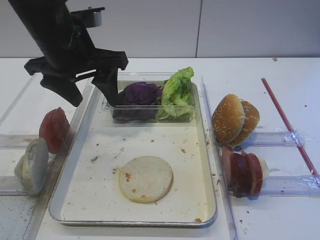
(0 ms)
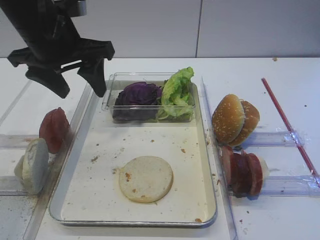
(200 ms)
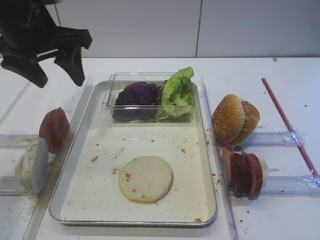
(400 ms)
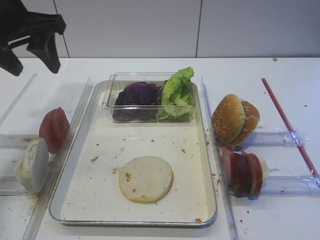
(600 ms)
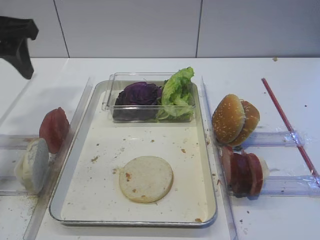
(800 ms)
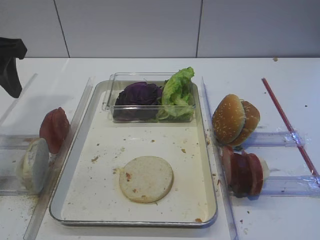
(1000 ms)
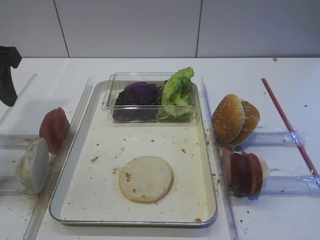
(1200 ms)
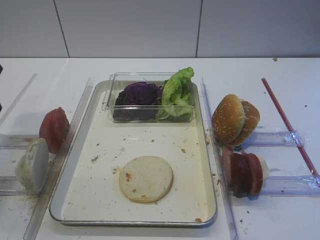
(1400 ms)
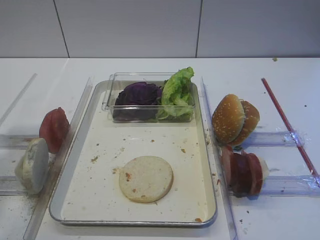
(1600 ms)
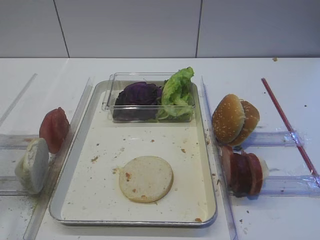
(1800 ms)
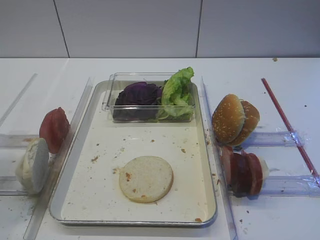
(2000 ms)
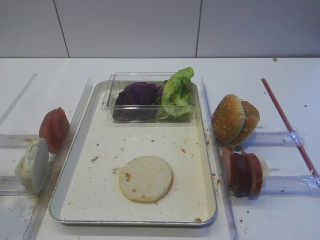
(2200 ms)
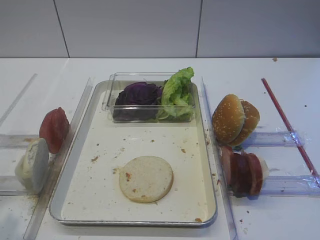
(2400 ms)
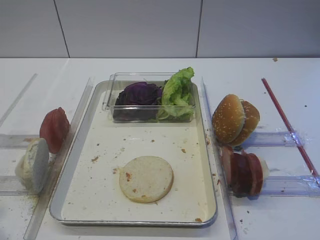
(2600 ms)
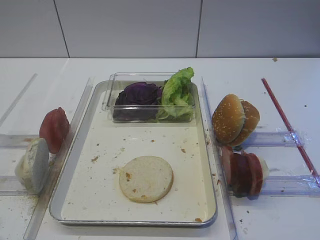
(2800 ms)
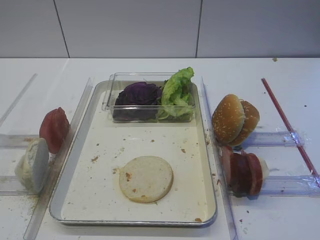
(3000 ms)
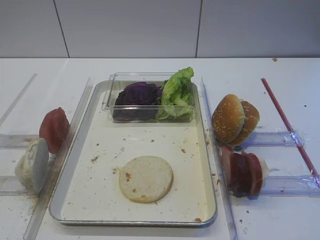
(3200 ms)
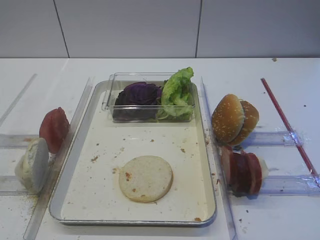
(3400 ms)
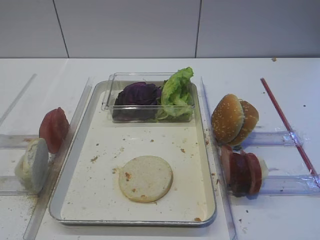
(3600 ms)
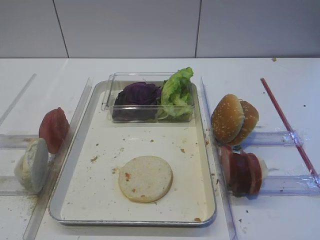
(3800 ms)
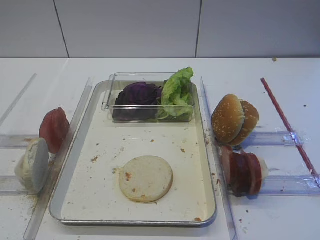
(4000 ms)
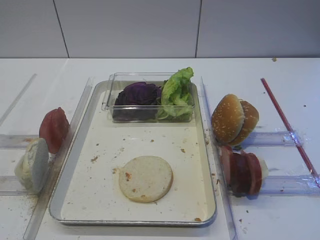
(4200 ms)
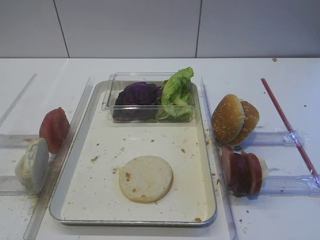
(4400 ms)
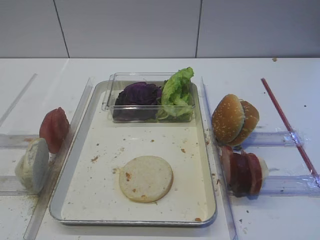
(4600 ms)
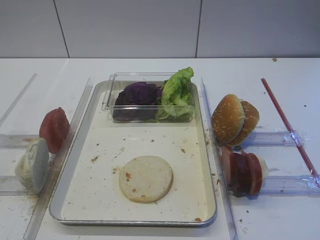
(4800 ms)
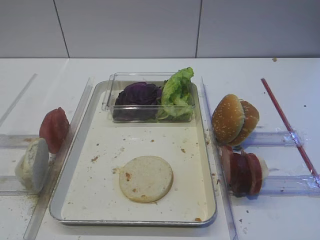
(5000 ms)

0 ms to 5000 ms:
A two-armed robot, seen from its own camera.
0 ms to 1600 ms: The left gripper is displaced backward and to the left by some 20 cm.
1600 ms to 3400 ms: The left gripper is displaced backward by some 20 cm.

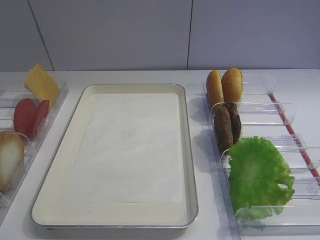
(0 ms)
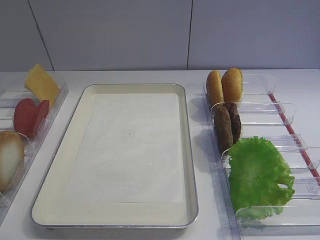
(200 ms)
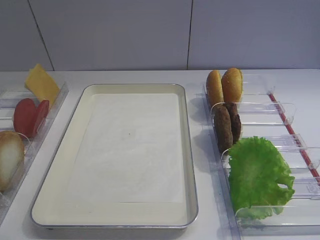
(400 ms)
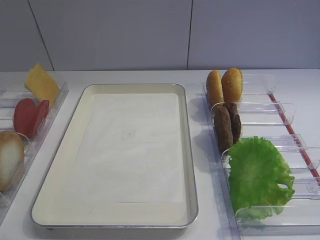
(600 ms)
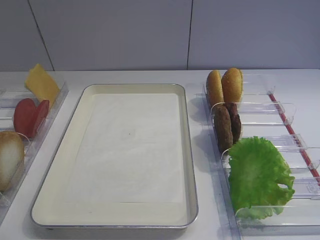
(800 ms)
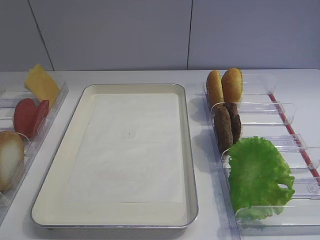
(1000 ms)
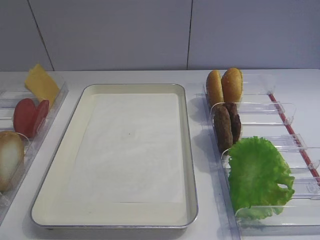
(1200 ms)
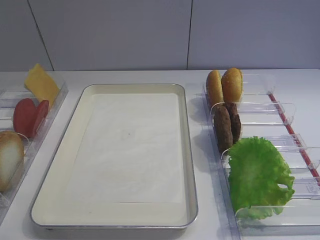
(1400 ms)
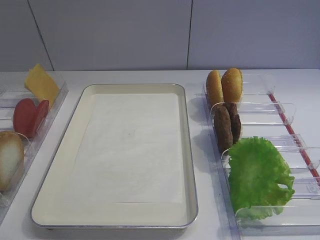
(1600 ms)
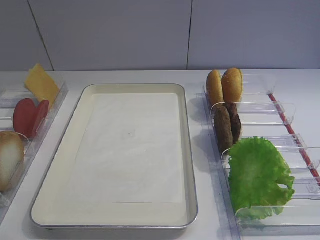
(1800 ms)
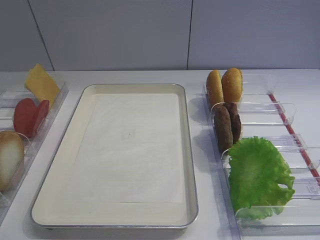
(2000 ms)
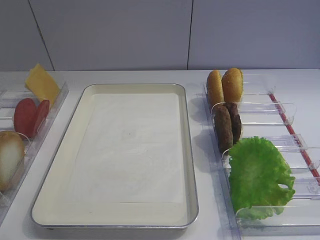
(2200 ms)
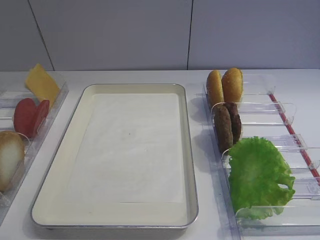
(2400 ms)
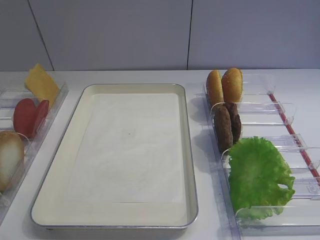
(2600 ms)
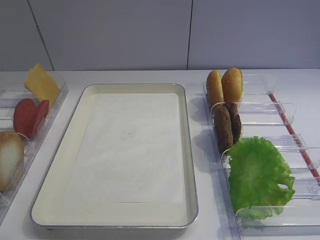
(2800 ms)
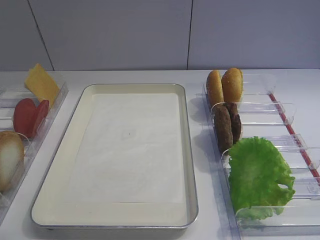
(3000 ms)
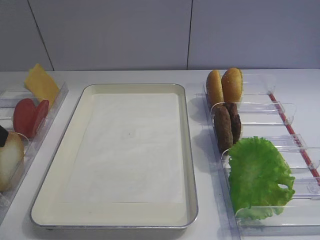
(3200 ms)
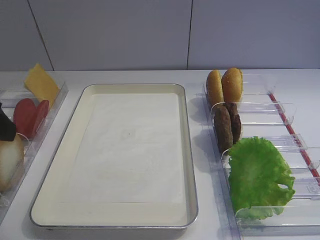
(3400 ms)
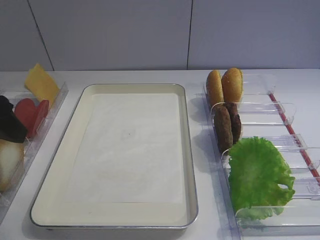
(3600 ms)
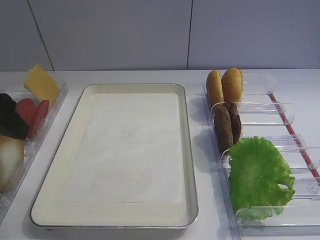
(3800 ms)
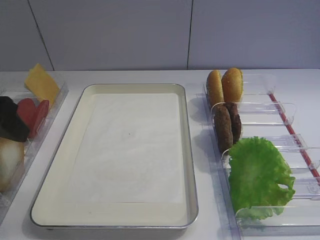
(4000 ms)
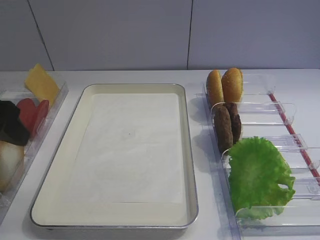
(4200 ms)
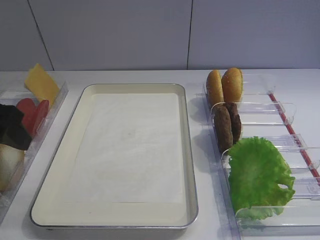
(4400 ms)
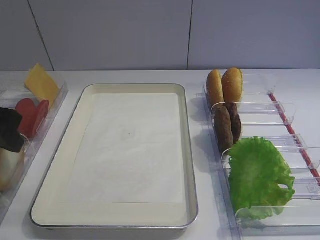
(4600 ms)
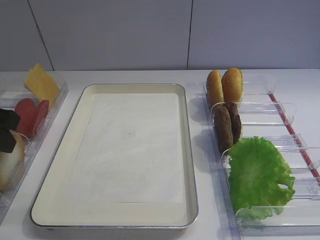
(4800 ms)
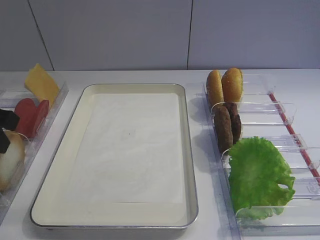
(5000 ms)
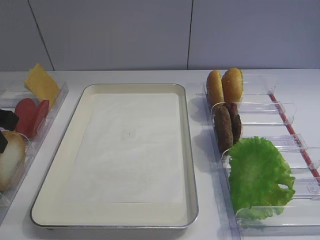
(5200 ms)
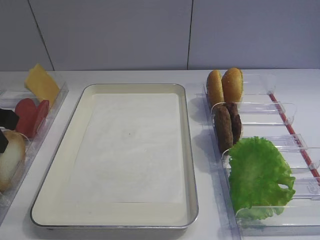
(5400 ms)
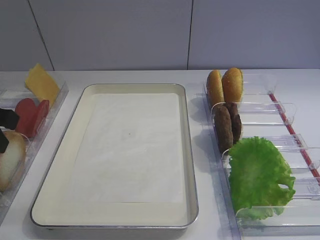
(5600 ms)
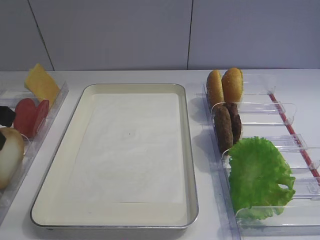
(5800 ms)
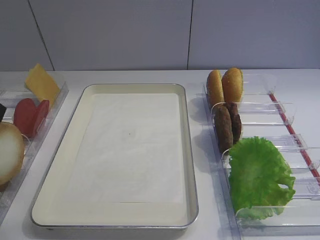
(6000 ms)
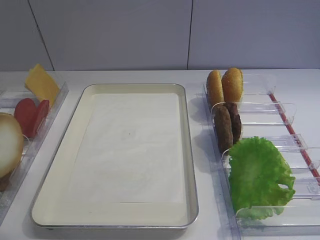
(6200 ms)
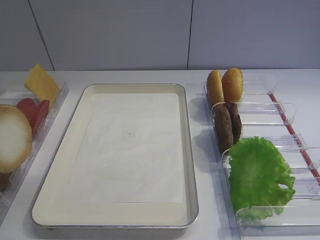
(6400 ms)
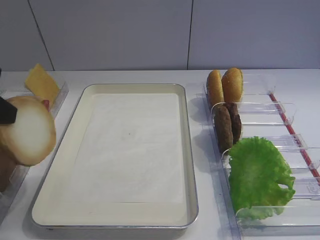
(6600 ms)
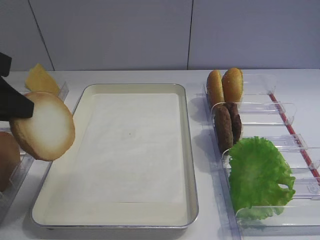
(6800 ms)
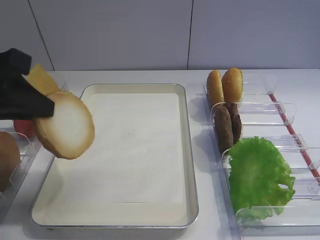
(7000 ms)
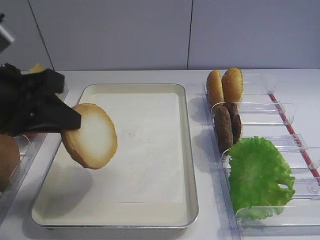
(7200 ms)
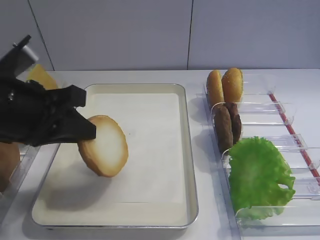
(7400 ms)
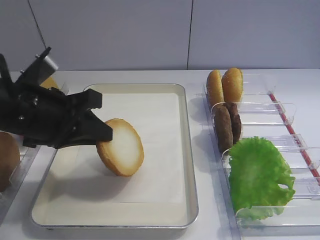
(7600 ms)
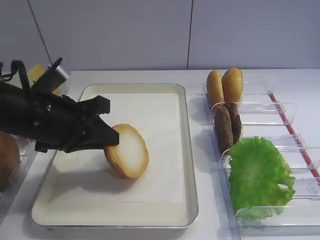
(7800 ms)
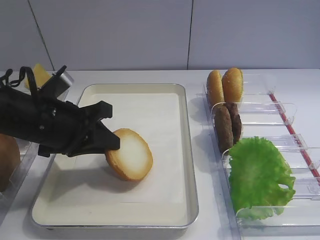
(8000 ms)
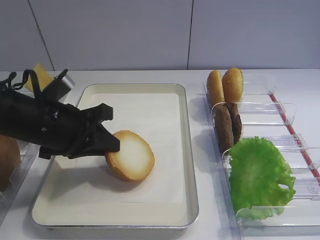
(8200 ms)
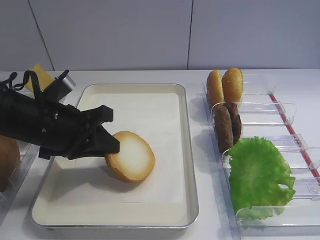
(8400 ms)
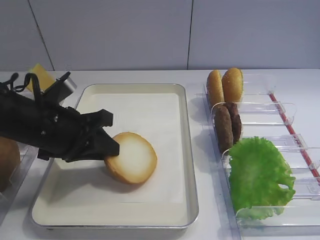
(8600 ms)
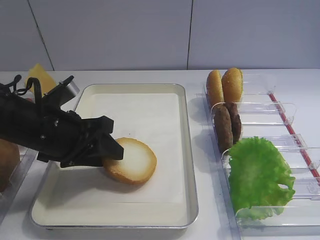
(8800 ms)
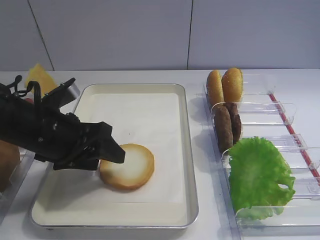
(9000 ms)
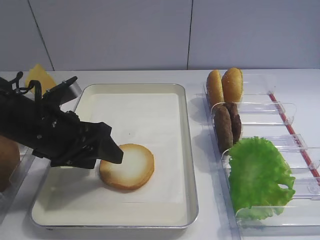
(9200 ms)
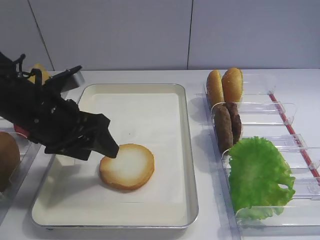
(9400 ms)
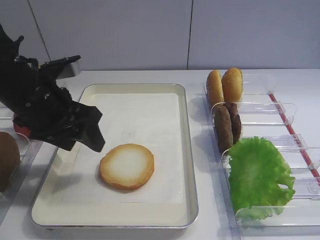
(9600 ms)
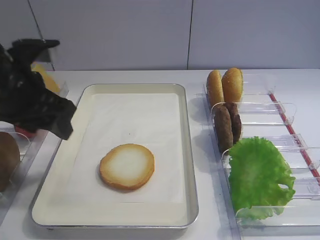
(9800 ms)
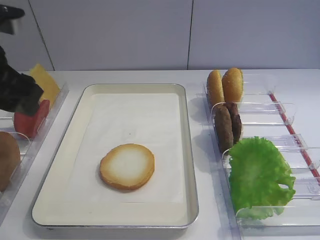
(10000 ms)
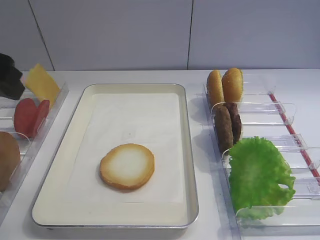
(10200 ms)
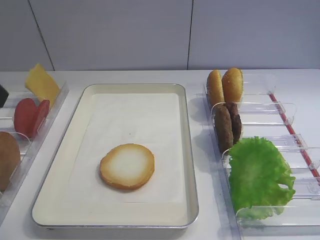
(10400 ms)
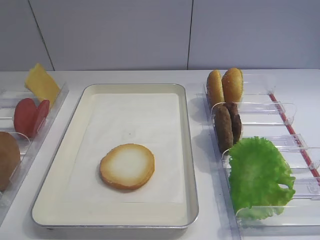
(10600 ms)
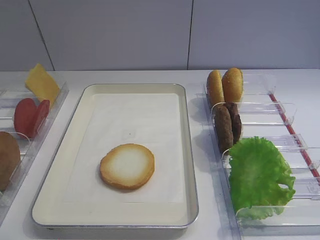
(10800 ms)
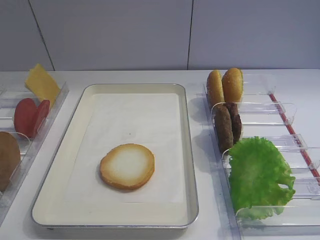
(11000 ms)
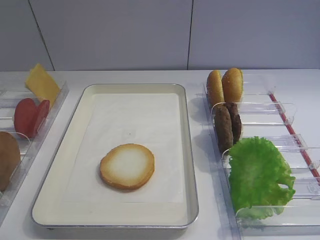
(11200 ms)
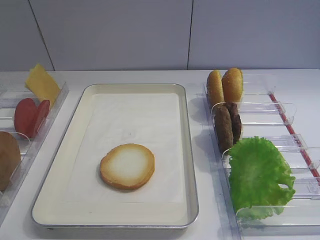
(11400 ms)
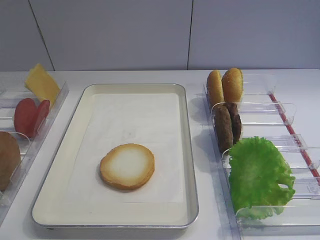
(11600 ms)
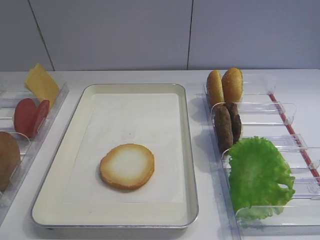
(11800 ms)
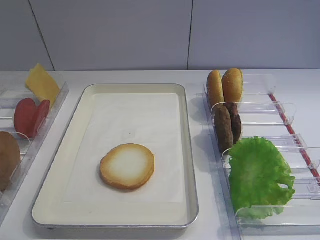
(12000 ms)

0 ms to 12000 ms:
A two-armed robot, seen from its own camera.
Step, 0 ms to 6400 ms: Pick up the bread slice with the left gripper.
Step, 6600 ms to 9600 ms: Place the bread slice on the tray with the left gripper.
3000 ms to 4400 ms: The left gripper heads forward, covering some 10 cm.
4400 ms to 6000 ms: The left gripper closes up.
6000 ms to 7600 ms: The left gripper is displaced to the right by about 10 cm.
7600 ms to 9000 ms: The left gripper is displaced downward by about 5 cm, and opens.
9000 ms to 10400 ms: The left gripper goes approximately 20 cm upward, to the left and backward.

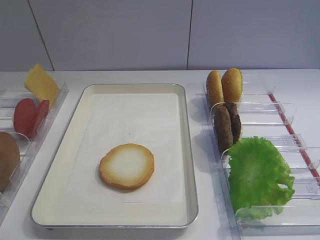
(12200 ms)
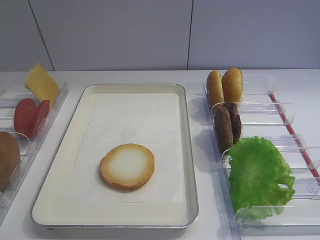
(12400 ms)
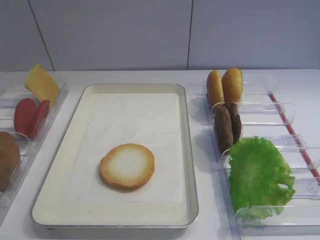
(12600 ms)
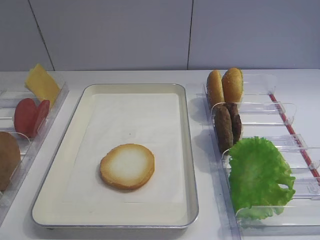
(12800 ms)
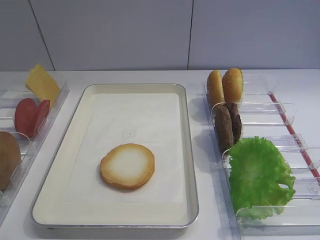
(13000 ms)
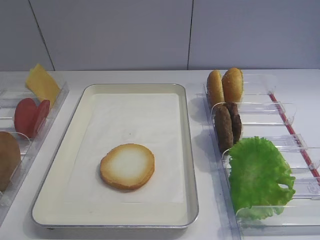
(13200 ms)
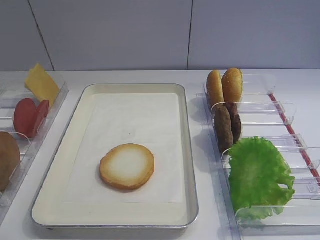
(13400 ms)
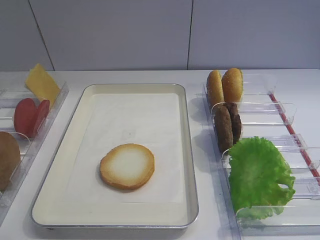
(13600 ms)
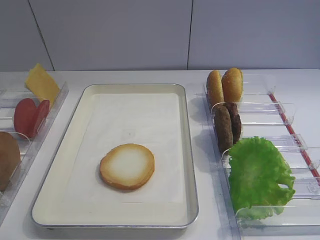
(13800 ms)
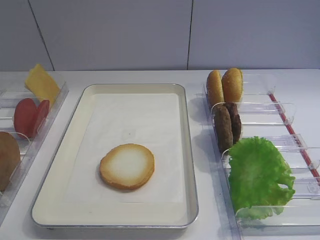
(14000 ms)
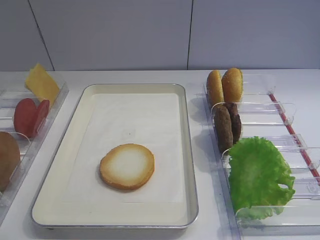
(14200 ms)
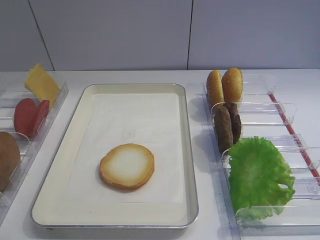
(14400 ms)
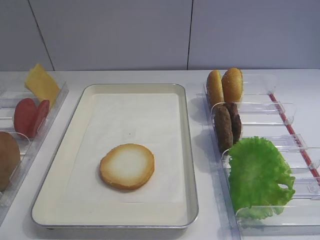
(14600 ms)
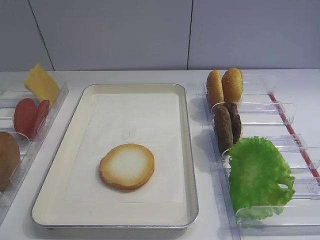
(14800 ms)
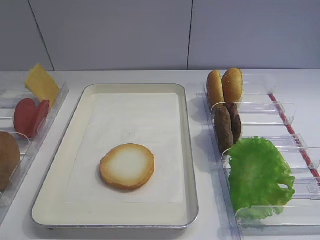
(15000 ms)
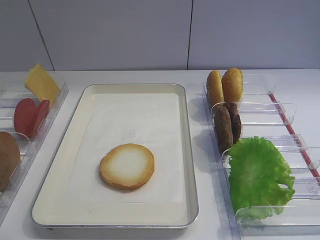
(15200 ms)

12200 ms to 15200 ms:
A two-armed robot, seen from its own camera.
13800 ms to 15200 ms: Both grippers stay put.

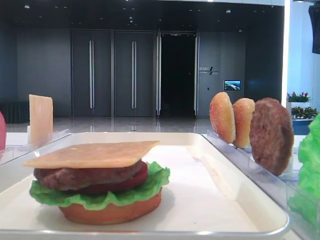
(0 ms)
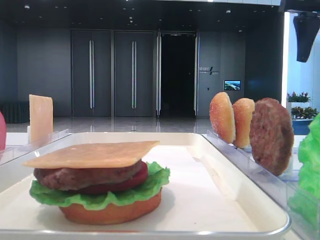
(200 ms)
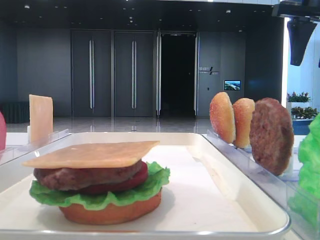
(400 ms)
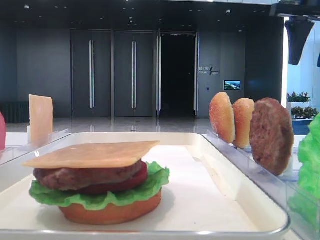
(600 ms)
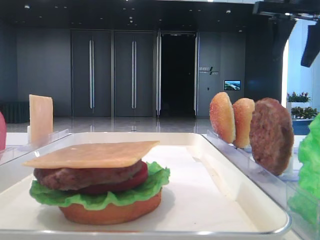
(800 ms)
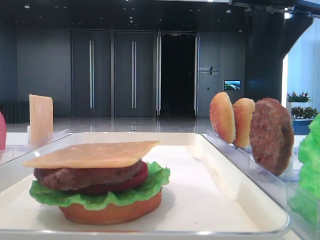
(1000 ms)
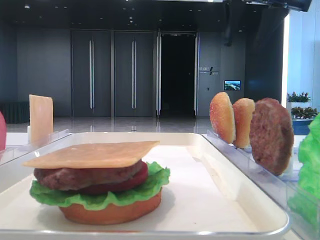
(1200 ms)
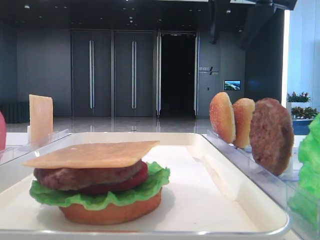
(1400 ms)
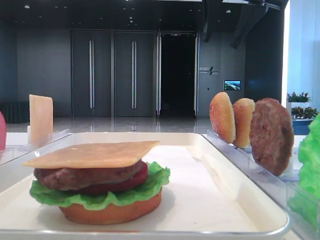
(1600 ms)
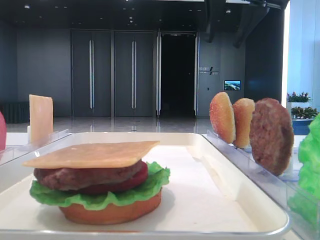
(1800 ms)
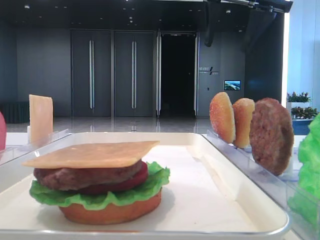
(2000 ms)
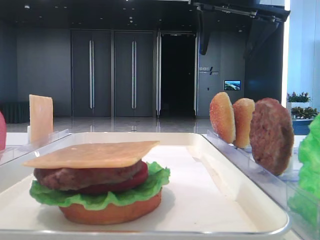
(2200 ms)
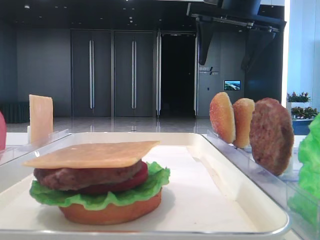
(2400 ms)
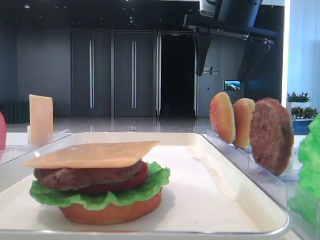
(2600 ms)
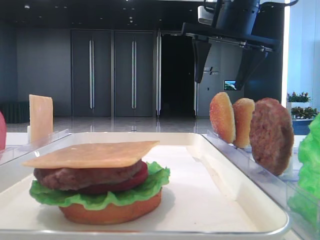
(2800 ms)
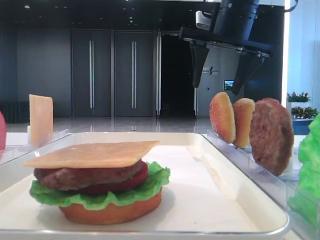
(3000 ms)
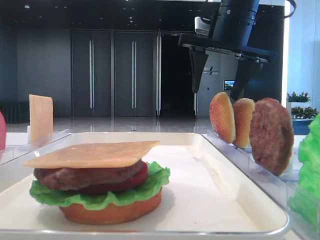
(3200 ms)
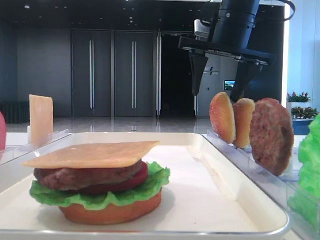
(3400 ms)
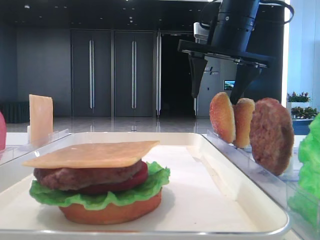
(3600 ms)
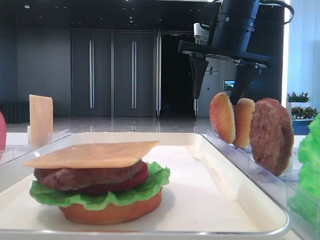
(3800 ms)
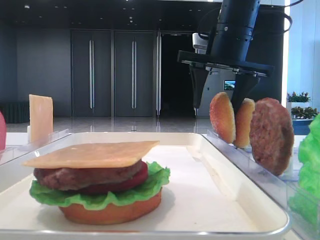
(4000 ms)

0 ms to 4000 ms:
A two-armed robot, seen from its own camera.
0 ms to 1400 ms: The right gripper heads to the left, covering roughly 15 cm.
1400 ms to 2600 ms: The right gripper ends up roughly 5 cm from where it was, and opens.
2600 ms to 4000 ms: The right gripper goes about 5 cm downward.
